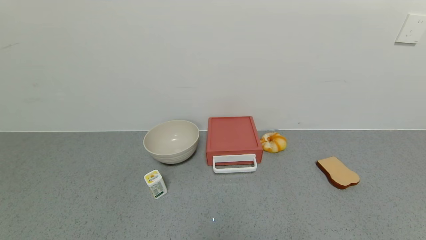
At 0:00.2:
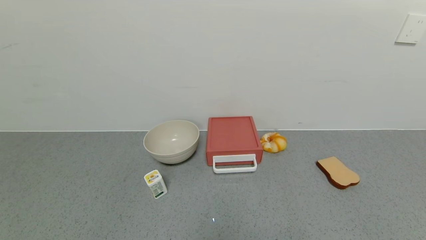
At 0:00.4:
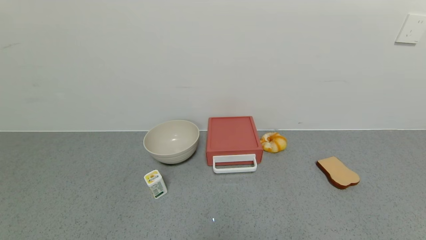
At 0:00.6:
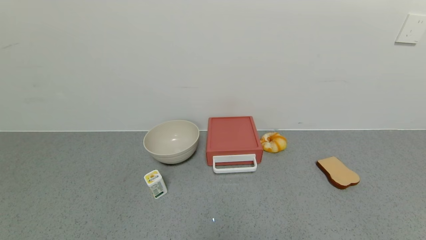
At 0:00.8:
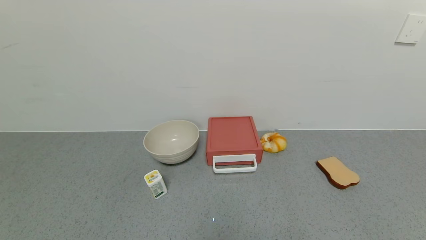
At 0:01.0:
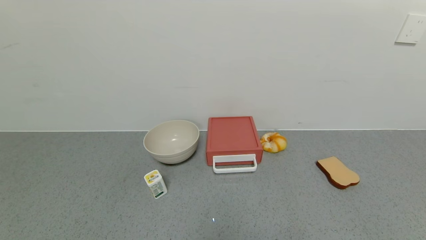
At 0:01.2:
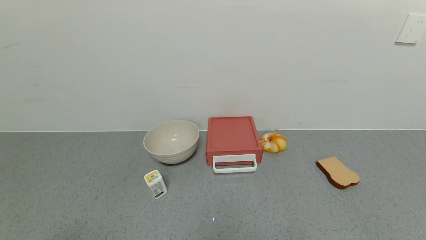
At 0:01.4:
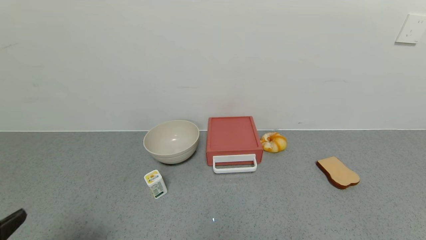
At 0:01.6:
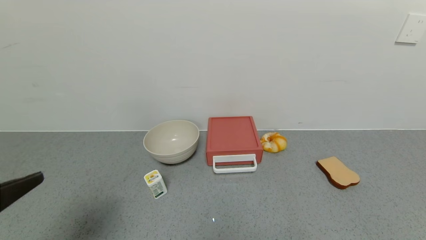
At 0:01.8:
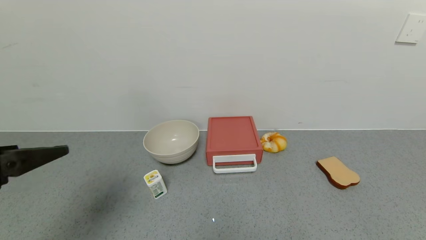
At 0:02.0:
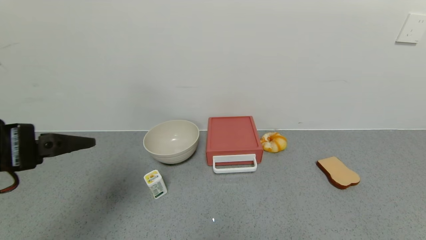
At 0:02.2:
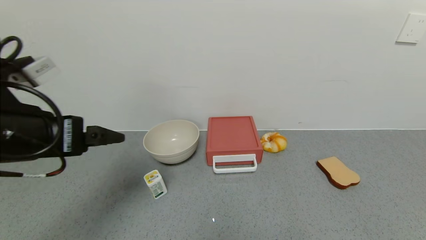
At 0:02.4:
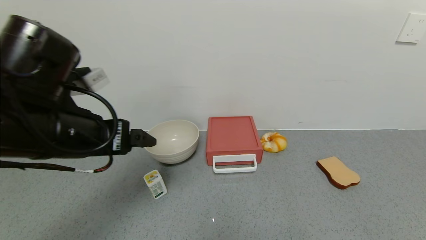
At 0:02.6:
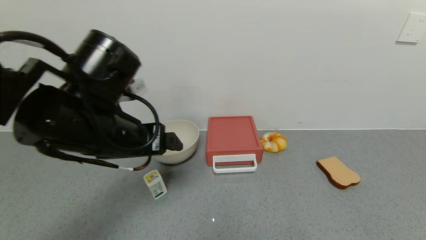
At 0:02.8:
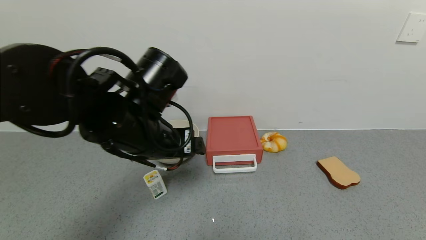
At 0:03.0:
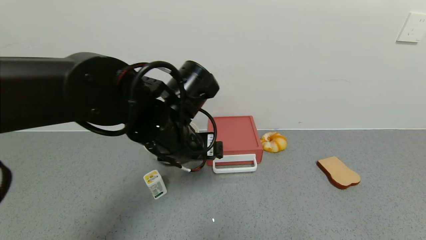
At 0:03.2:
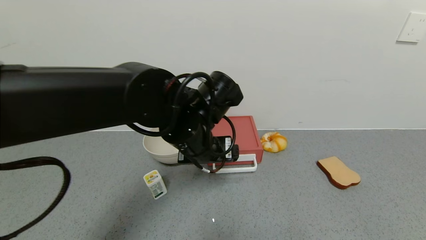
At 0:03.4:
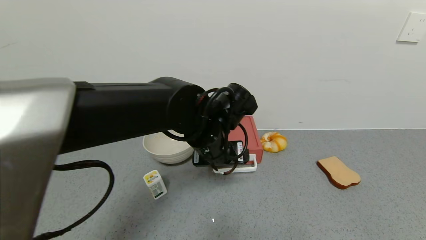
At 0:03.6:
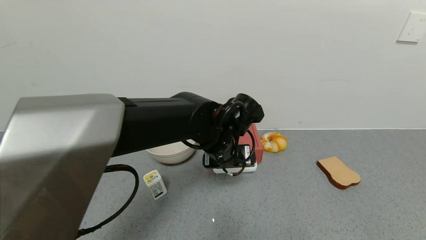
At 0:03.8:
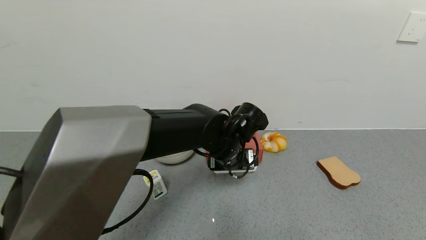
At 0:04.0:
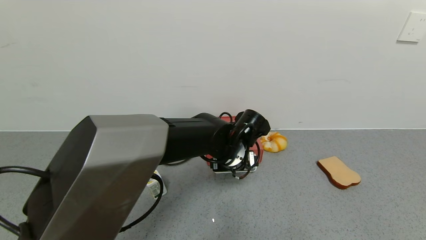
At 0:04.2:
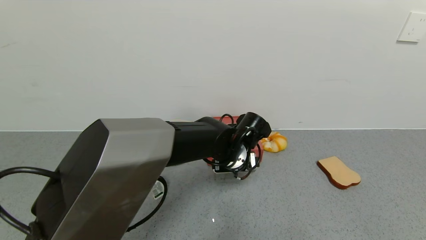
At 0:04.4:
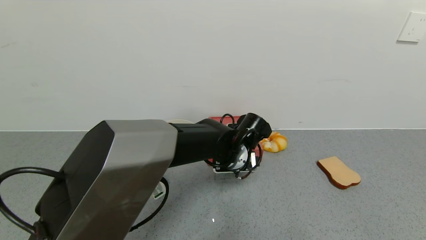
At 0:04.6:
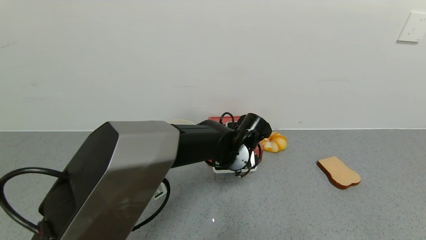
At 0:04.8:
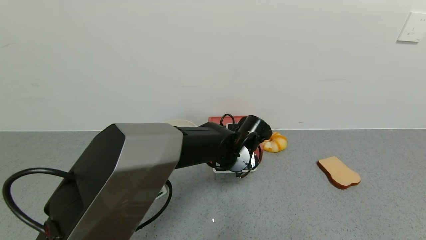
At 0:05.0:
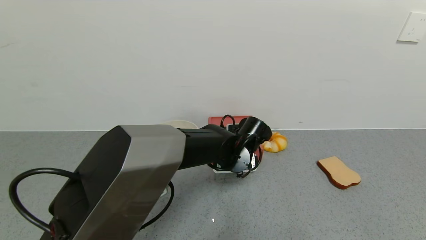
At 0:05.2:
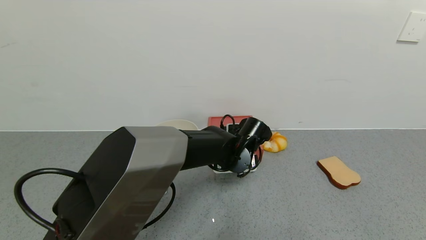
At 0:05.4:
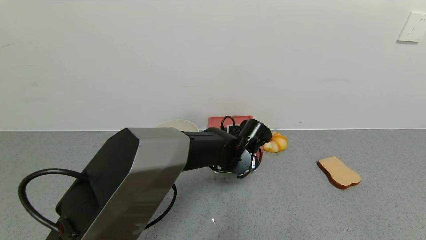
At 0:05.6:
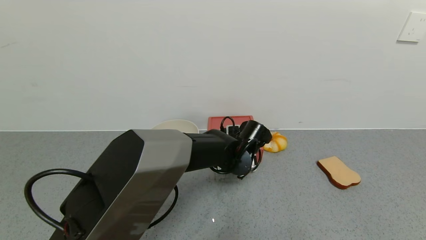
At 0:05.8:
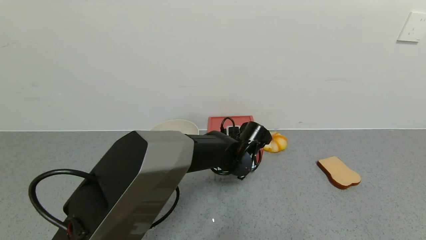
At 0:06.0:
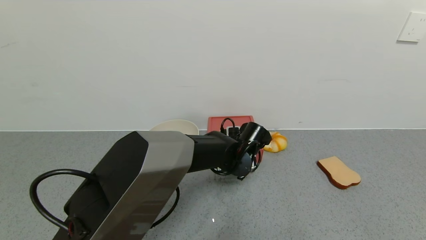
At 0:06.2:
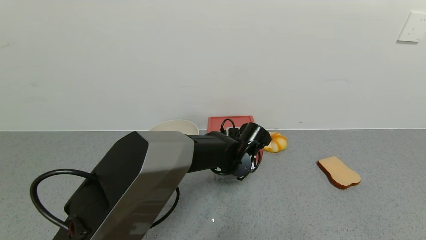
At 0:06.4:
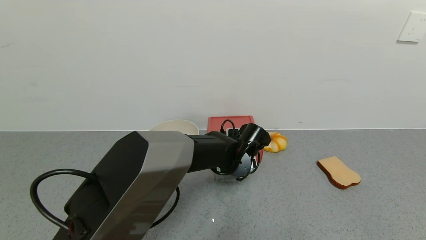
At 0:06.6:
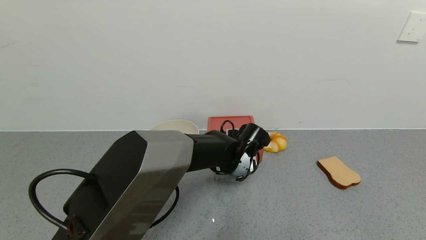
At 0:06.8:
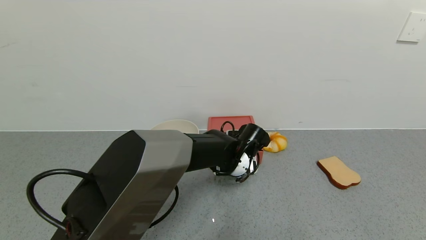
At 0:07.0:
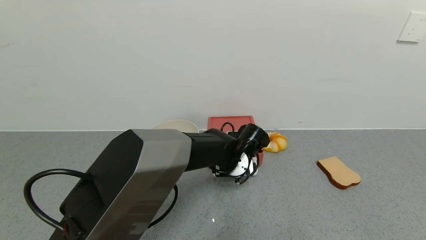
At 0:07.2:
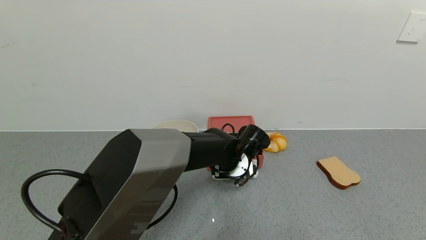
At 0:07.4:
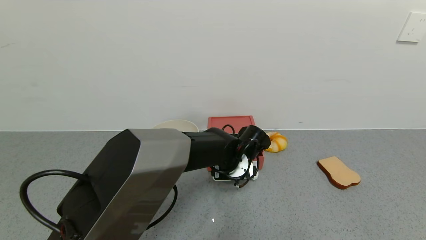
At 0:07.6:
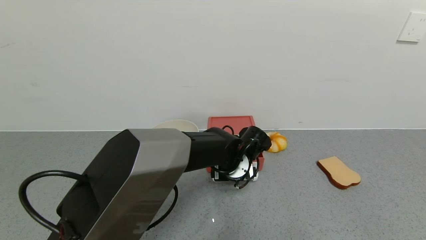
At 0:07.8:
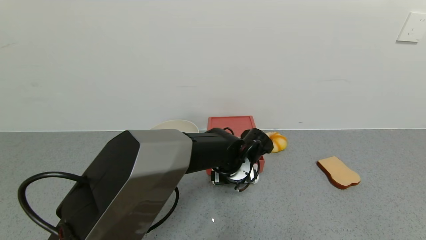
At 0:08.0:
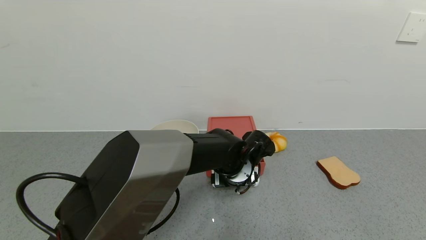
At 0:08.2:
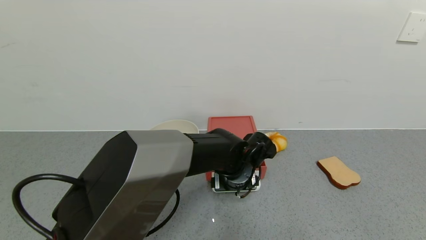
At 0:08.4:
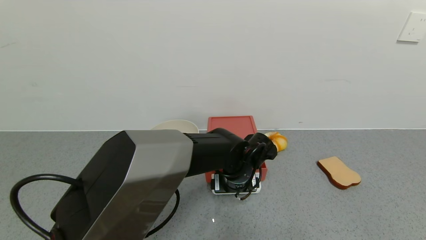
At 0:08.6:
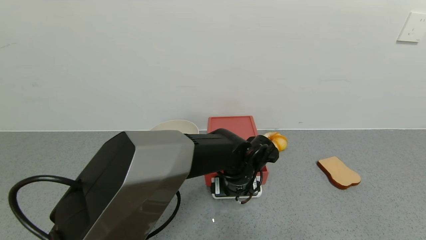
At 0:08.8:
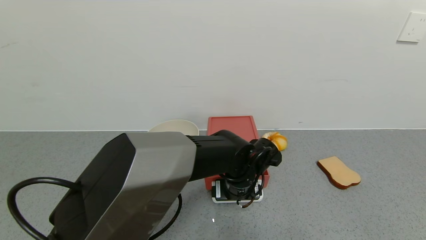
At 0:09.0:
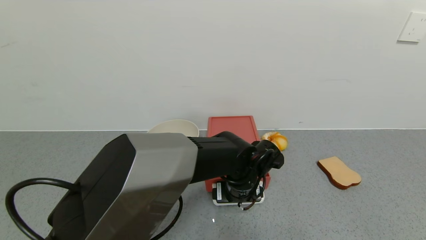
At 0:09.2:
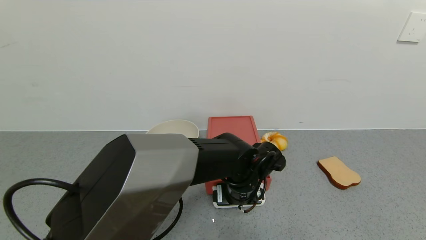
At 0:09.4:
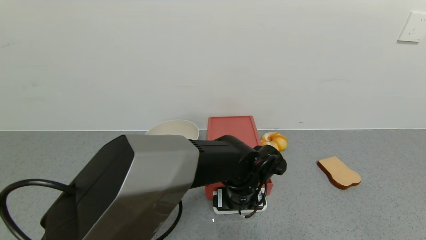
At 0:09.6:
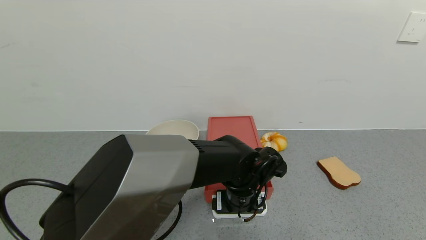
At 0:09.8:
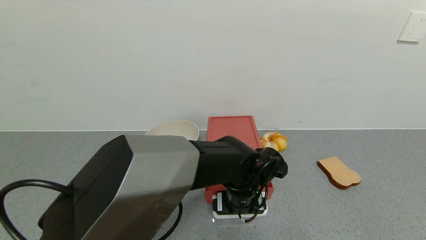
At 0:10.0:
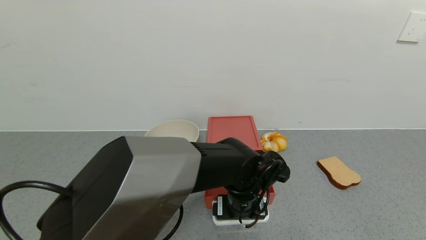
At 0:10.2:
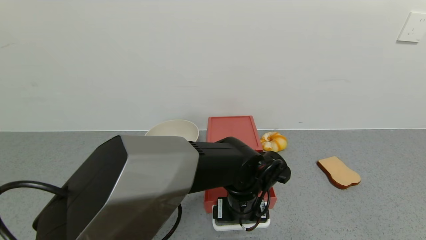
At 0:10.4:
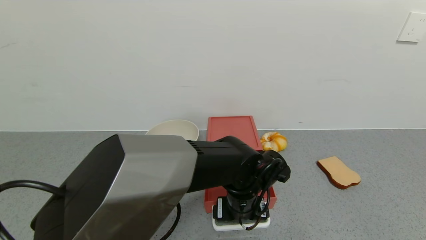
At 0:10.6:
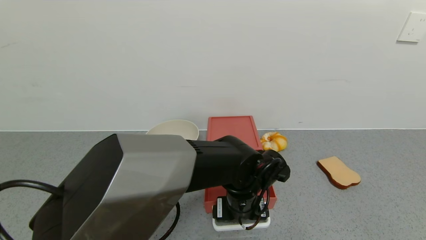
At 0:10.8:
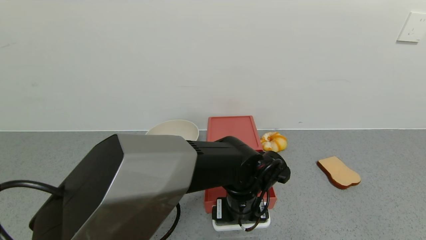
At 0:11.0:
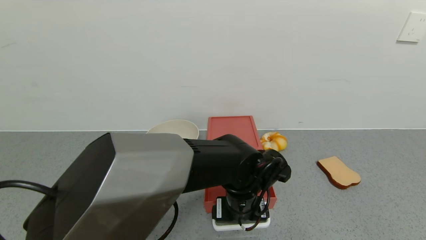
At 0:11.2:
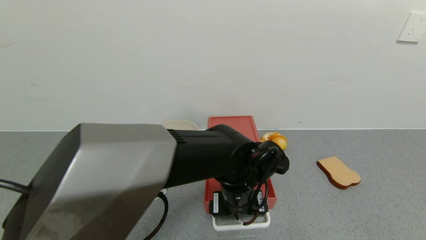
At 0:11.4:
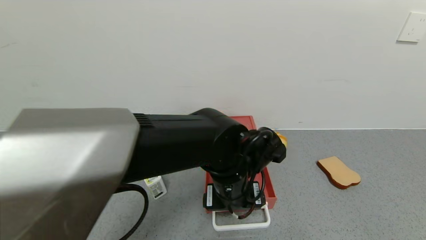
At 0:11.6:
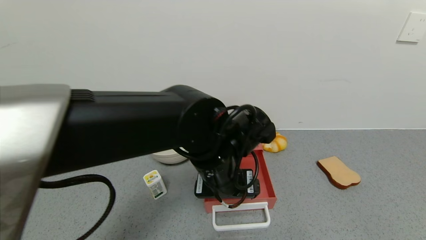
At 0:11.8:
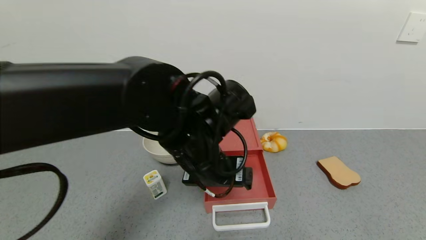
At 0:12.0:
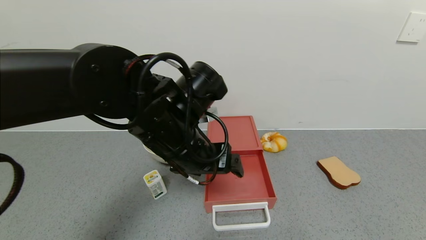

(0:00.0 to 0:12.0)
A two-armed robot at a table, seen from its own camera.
Task of the whole recording: use the gripper to open the drawer and close the red drawer.
Step, 0:00.0 - 0:11.4: Open the red drawer with the left gripper.
0:00.0 - 0:01.6: The left gripper travels upward and forward by approximately 20 cm.
0:01.6 - 0:03.0: The left gripper moves to the right and forward, about 30 cm.
0:03.0 - 0:04.4: The left gripper heads downward, to the right and forward, covering approximately 15 cm.
0:04.4 - 0:07.6: The grippers move only a little.
0:07.6 - 0:09.0: The grippers stay close to where they were, moving slightly.
0:09.0 - 0:10.4: The grippers stay close to where they were, moving slightly.
0:10.4 - 0:12.0: The left gripper heads upward and to the left, covering approximately 20 cm.

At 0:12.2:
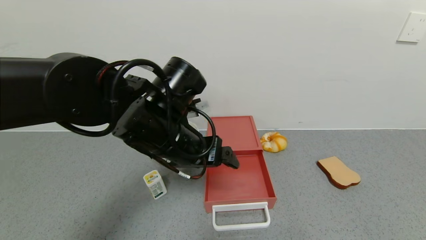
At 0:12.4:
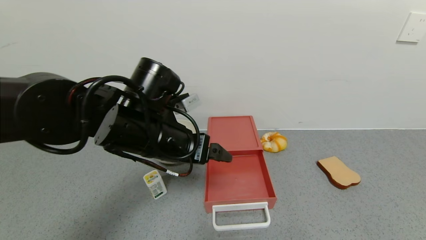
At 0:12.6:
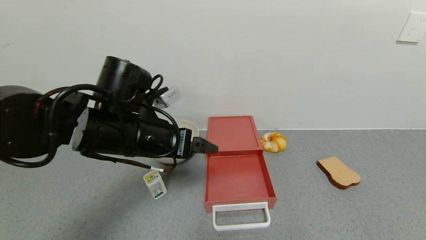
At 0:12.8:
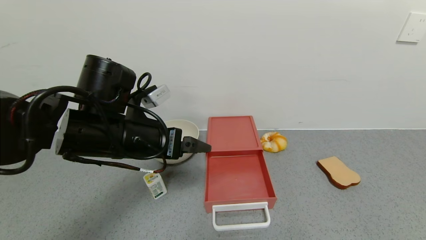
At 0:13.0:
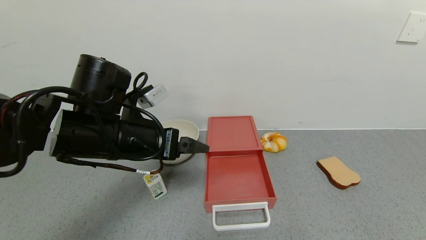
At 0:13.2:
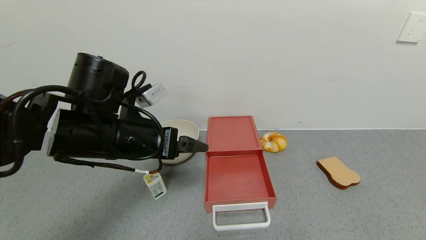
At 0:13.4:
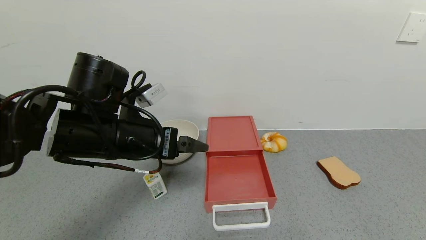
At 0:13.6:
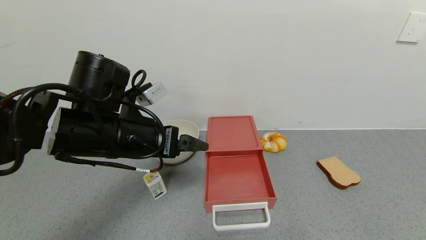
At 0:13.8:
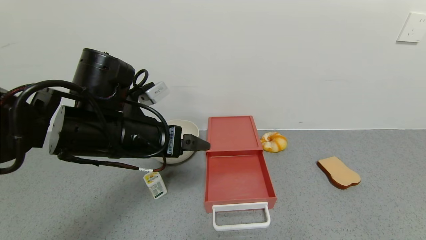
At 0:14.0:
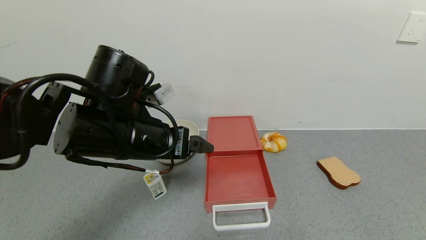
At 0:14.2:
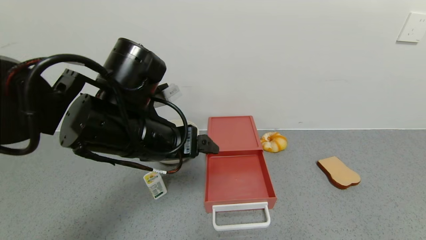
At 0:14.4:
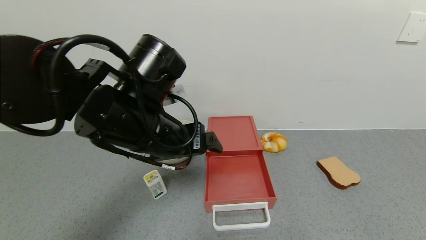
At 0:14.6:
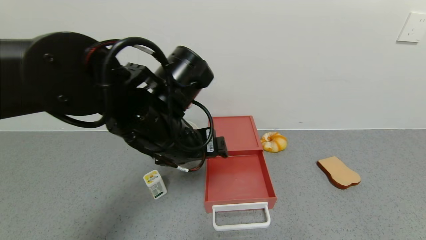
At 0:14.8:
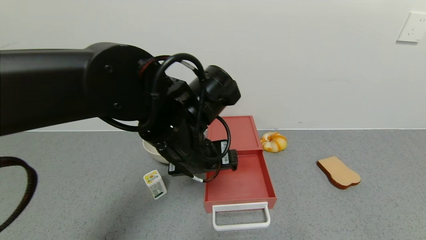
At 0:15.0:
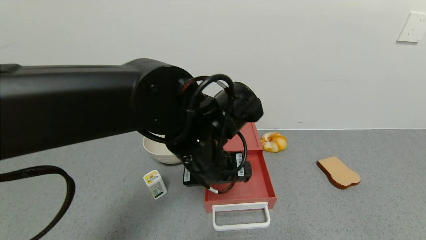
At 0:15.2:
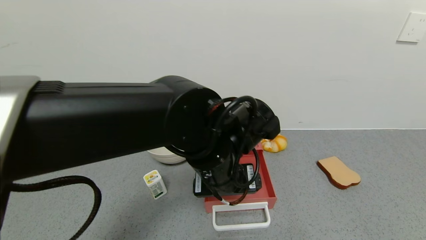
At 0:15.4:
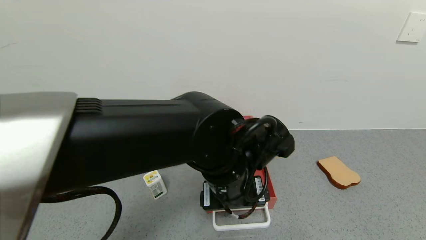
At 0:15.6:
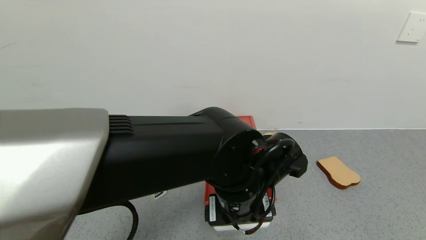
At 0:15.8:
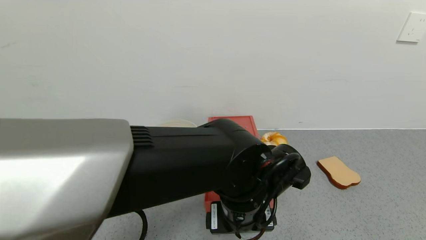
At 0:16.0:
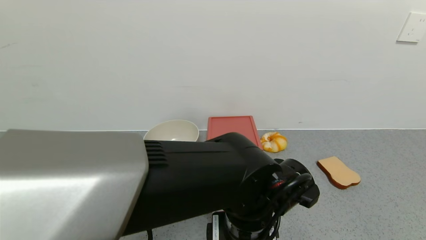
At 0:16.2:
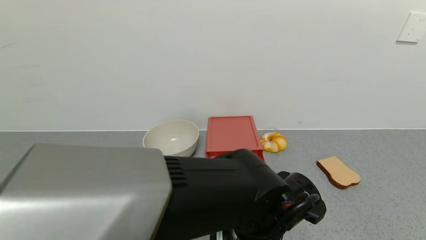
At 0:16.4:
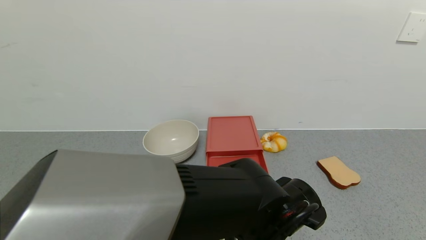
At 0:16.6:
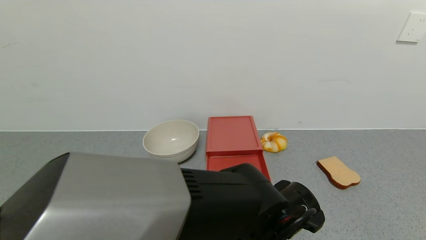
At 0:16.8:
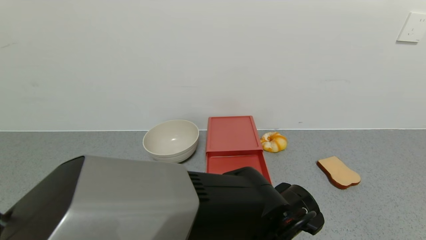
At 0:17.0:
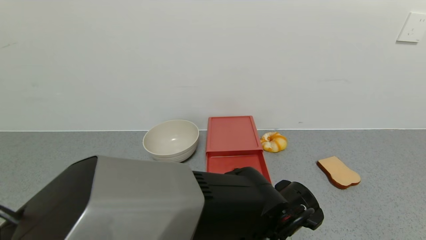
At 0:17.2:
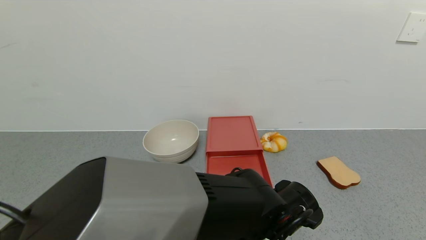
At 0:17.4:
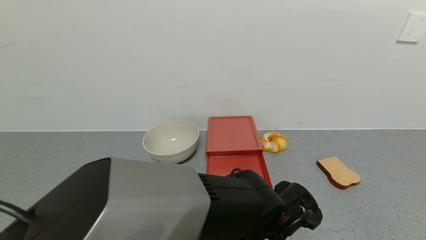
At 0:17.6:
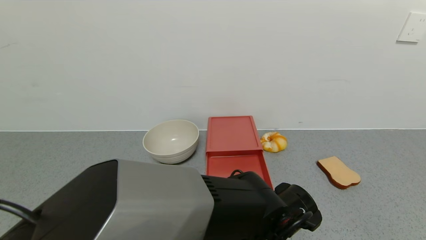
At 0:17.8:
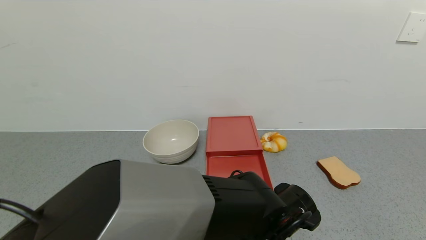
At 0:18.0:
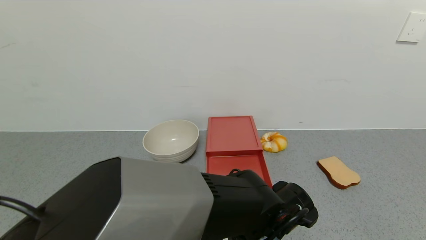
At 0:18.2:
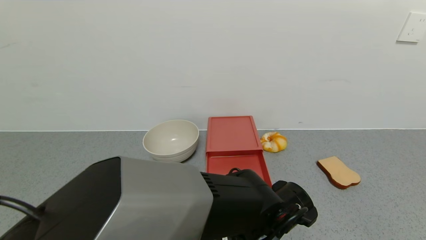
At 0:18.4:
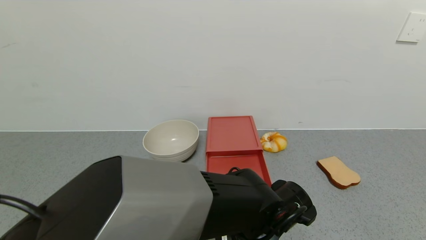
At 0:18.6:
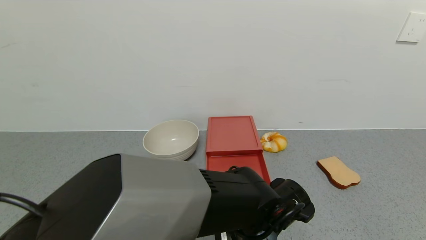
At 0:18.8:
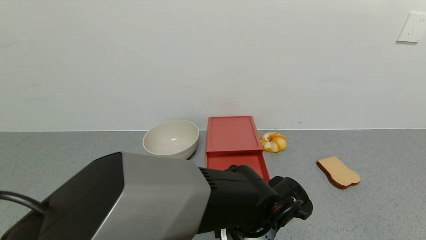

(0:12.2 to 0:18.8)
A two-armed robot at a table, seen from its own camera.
Task of the whole recording: use the gripper to open the drawer and close the red drawer.
0:12.2 - 0:13.8: The left gripper goes roughly 5 cm to the left.
0:13.8 - 0:15.4: The left gripper heads to the right, covering roughly 15 cm.
0:15.4 - 0:17.2: The left gripper goes some 10 cm downward.
0:17.2 - 0:18.8: There are only small adjustments of the grippers.
